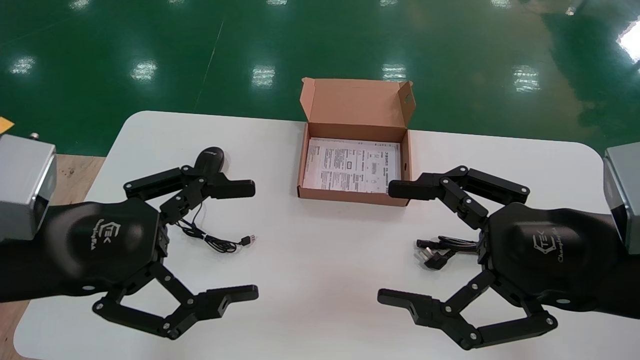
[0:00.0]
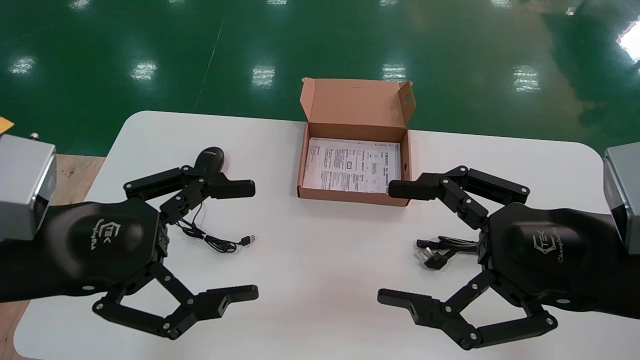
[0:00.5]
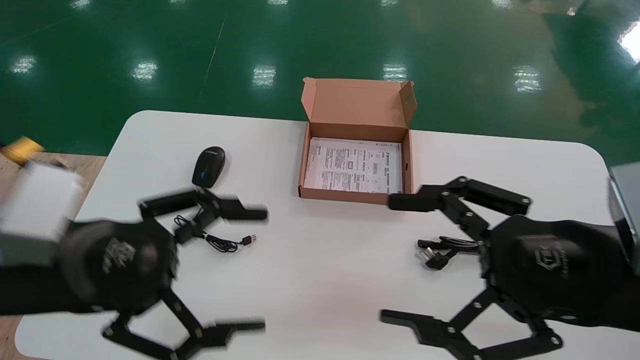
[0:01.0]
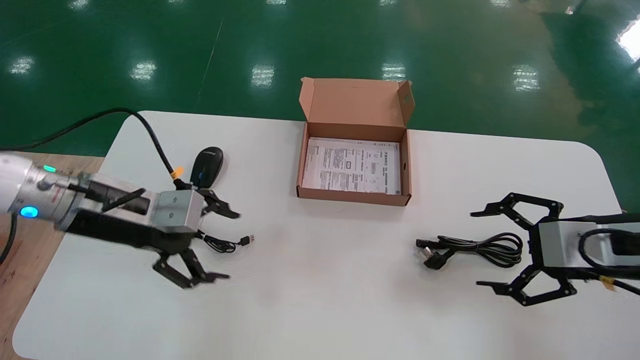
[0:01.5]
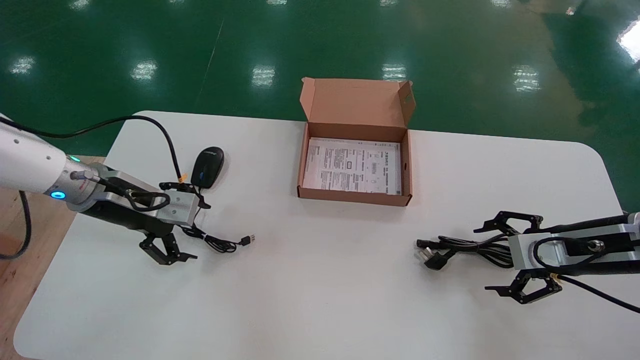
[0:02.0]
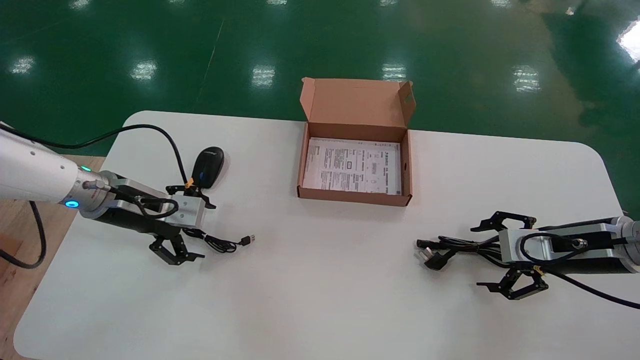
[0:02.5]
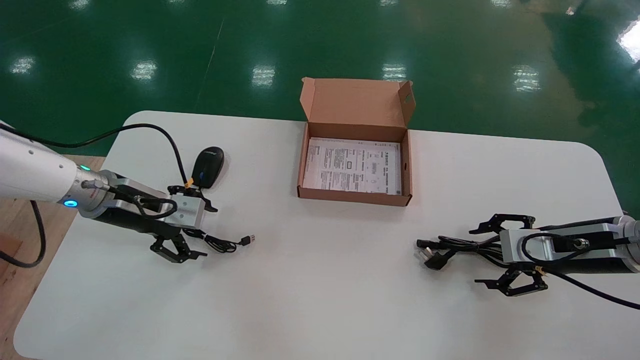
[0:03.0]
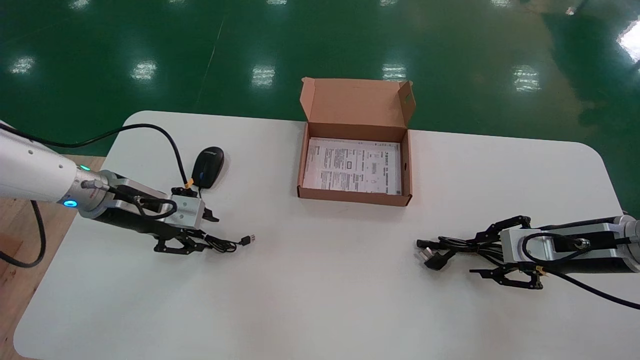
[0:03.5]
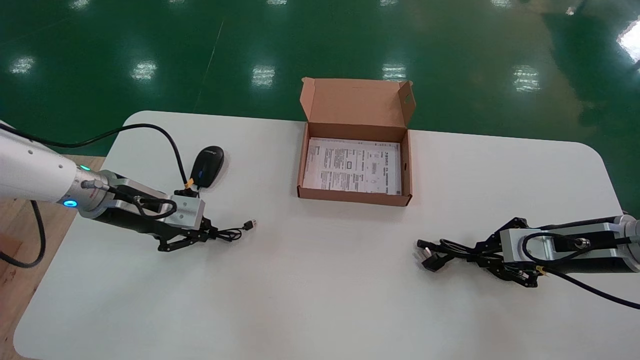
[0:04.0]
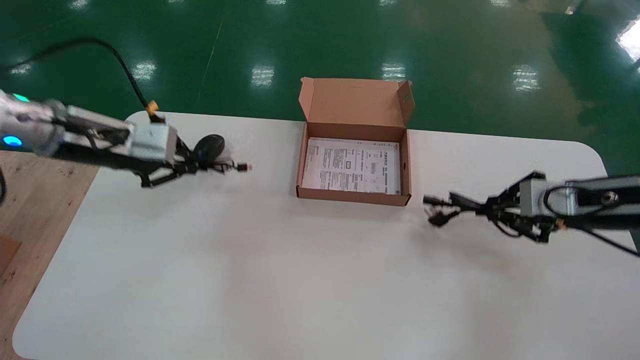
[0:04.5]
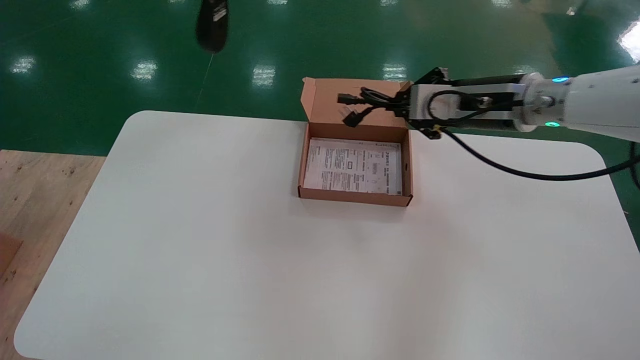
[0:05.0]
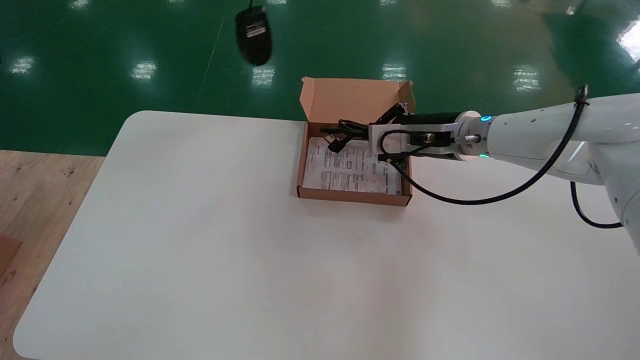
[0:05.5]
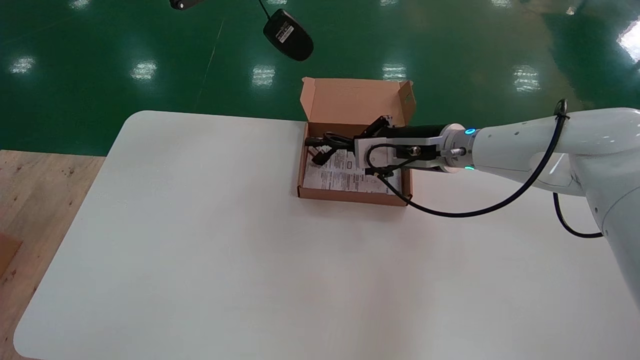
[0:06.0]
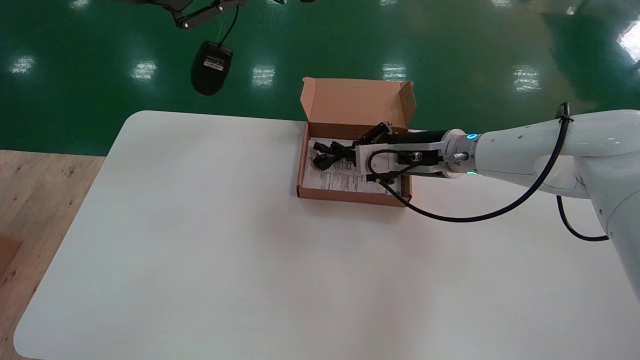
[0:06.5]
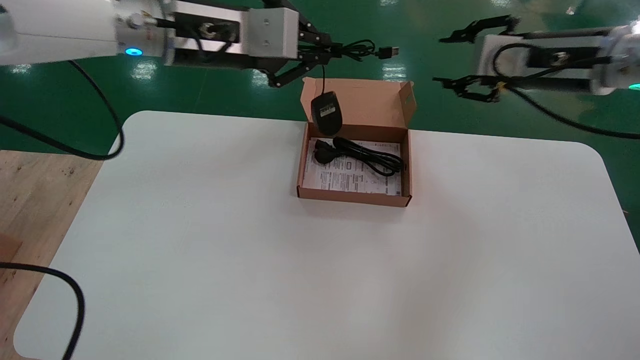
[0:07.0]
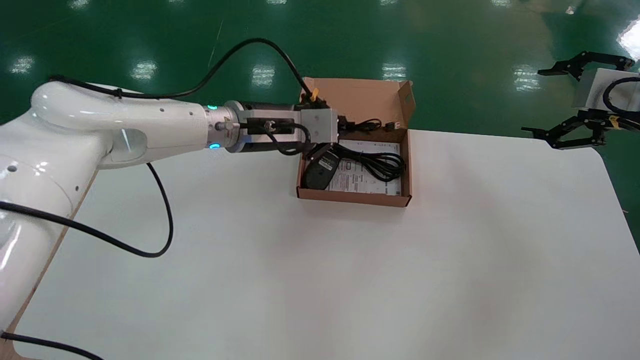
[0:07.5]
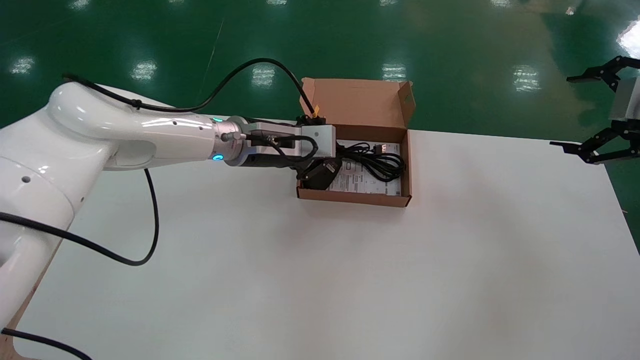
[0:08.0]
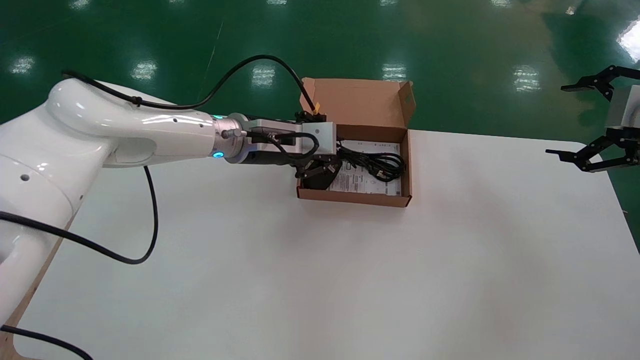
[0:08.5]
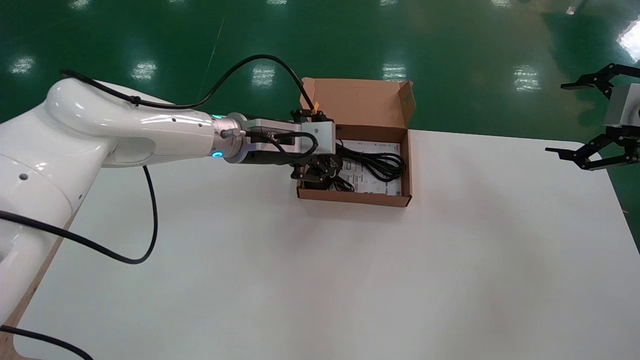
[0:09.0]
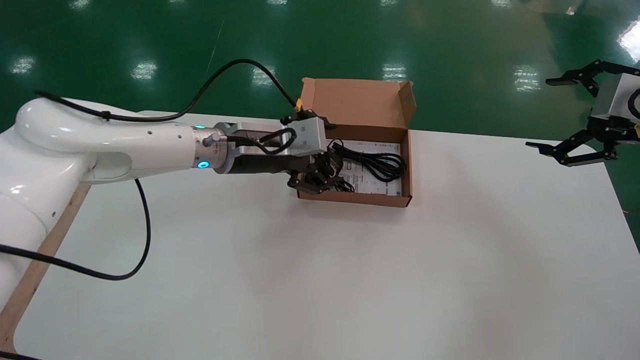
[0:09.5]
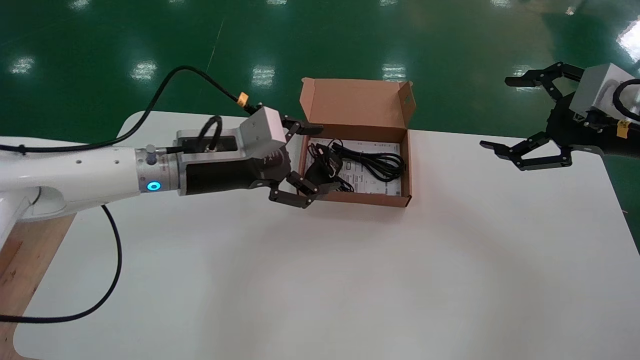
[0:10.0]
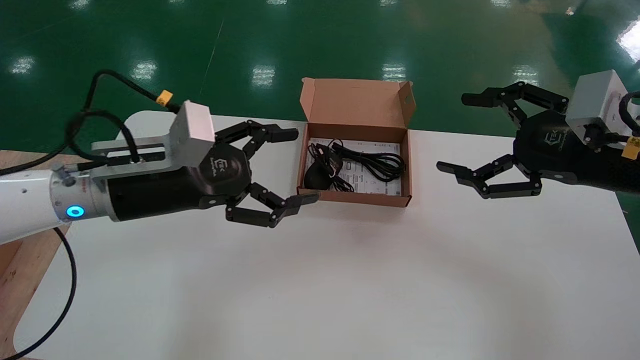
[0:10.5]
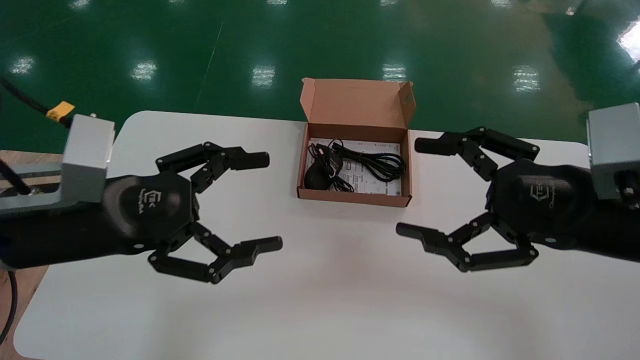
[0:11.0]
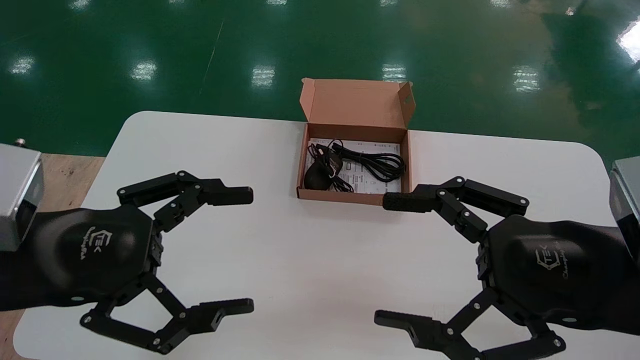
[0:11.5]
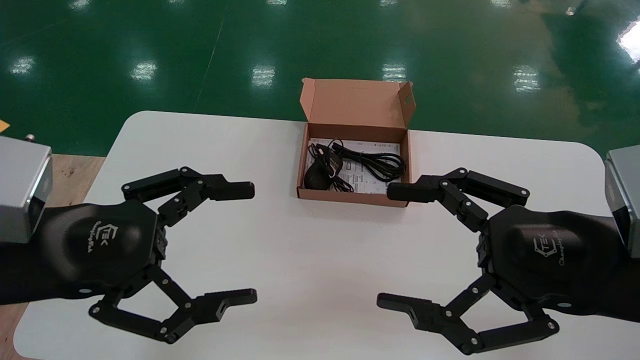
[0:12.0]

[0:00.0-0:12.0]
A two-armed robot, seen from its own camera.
Step, 0:02.0 to 0:04.0: Simultaneously pick up the mouse and power cord from the accessory packaging area.
Step, 0:04.5 to 0:08.5: Place the mouse and power cord into the box.
0:00.0 to 0:02.0: The left gripper is displaced forward by some 20 cm. The right gripper shifts roughly 20 cm forward, to the right and downward.
0:02.0 to 0:04.0: The right gripper closes; the left gripper closes up.
0:04.0 to 0:06.0: The left gripper heads upward, covering about 30 cm; the right gripper goes approximately 25 cm to the left, forward and upward.
0:06.0 to 0:08.0: The left gripper is displaced downward, to the right and forward by approximately 30 cm, while the right gripper moves to the right and backward, roughly 30 cm, and opens its fingers.
0:08.0 to 0:10.0: The left gripper goes about 10 cm backward and to the left, and opens. The right gripper heads to the left, covering some 5 cm.
0:10.0 to 0:12.0: The right gripper moves backward, to the left and downward, roughly 20 cm. Meanwhile the left gripper goes approximately 20 cm backward and to the left.

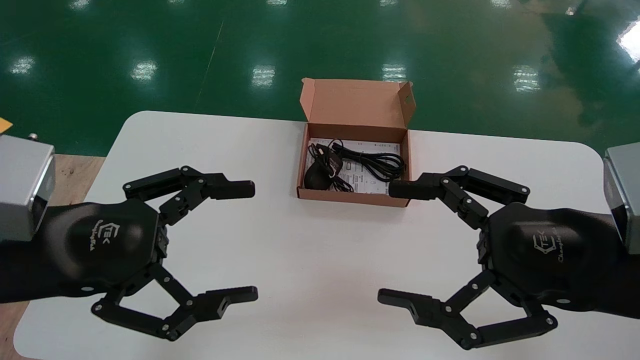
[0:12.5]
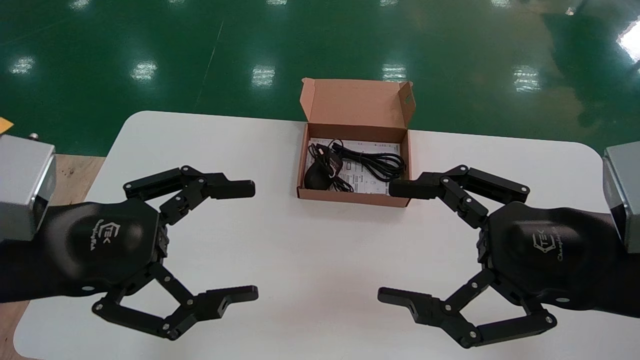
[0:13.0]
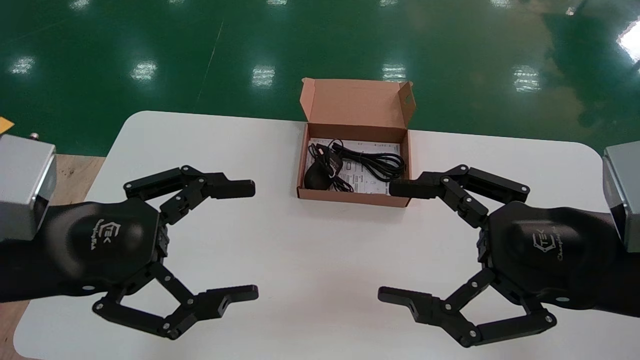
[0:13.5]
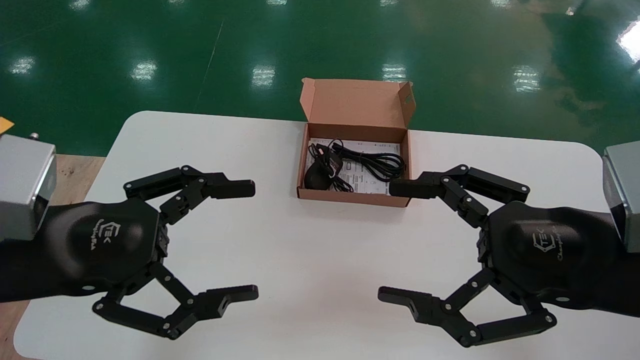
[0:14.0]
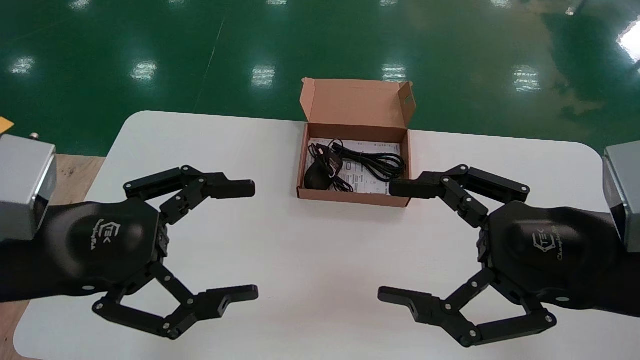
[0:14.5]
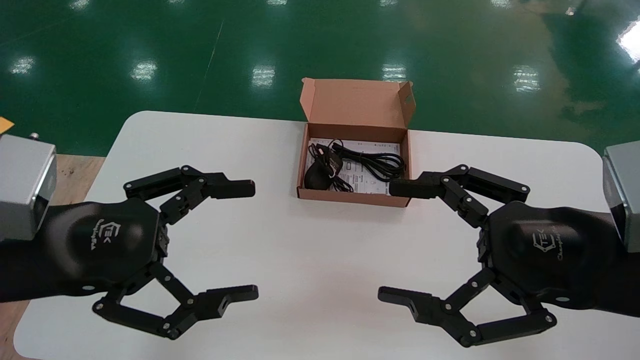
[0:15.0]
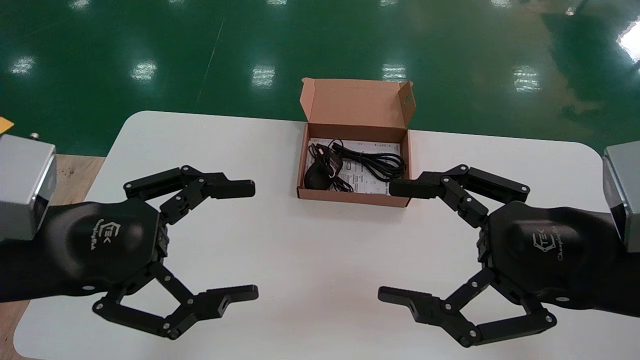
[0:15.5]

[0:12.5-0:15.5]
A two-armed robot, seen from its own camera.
0:12.5 to 0:15.5: The two grippers keep their place.
